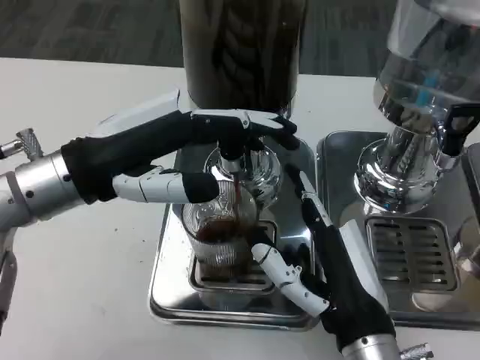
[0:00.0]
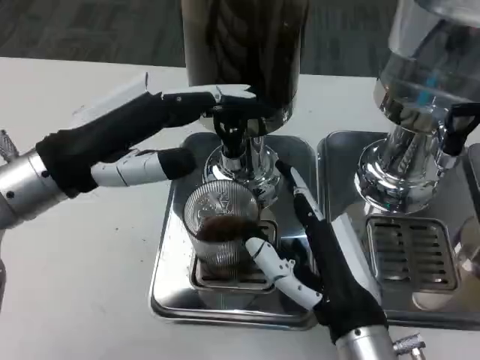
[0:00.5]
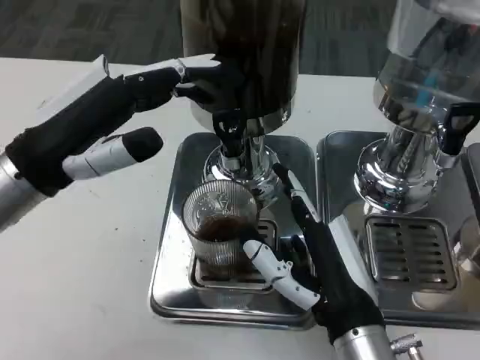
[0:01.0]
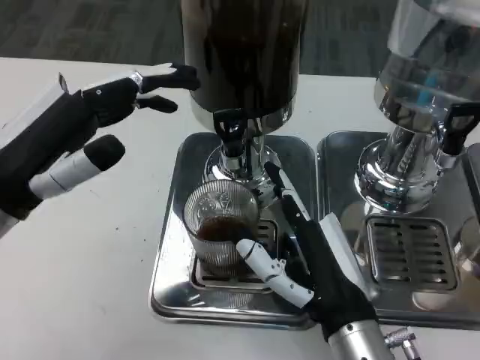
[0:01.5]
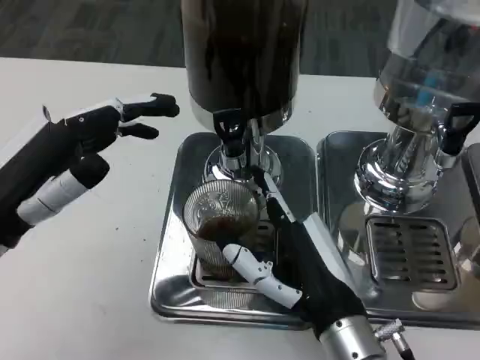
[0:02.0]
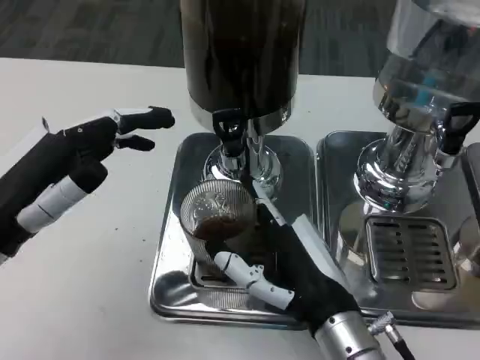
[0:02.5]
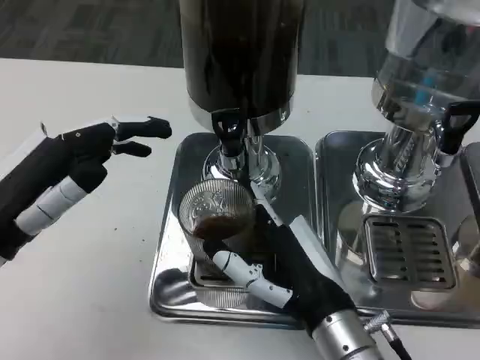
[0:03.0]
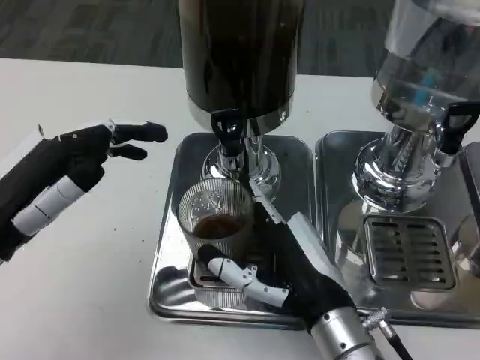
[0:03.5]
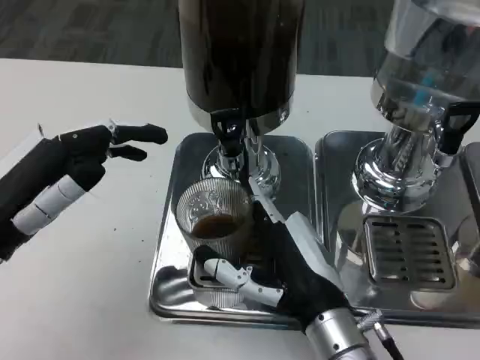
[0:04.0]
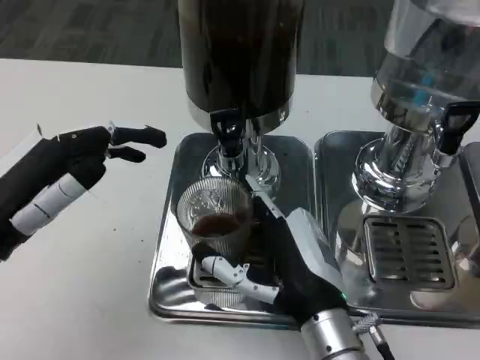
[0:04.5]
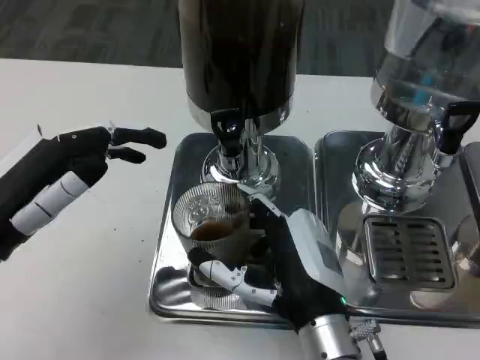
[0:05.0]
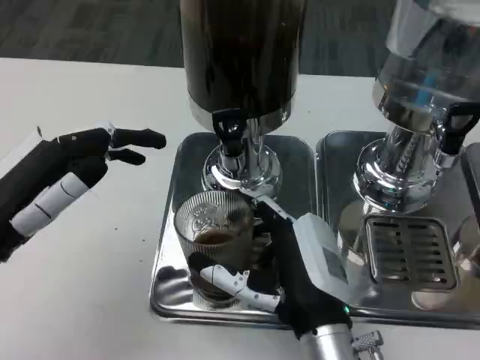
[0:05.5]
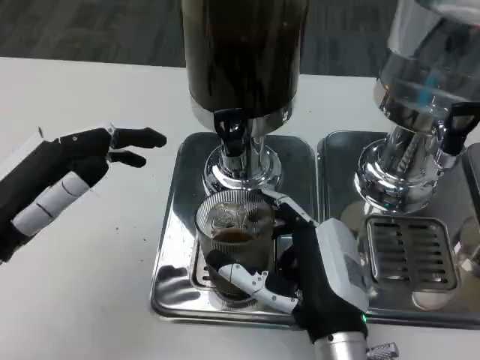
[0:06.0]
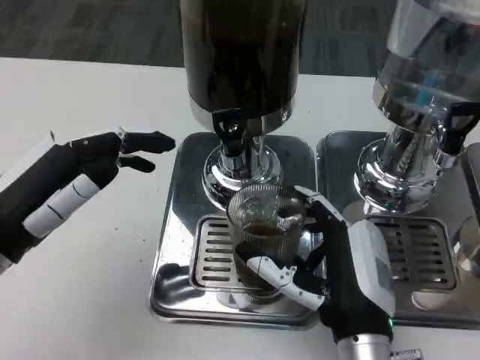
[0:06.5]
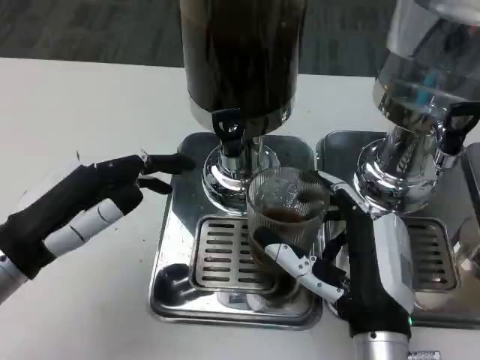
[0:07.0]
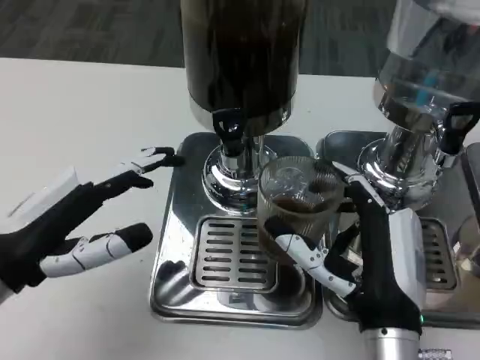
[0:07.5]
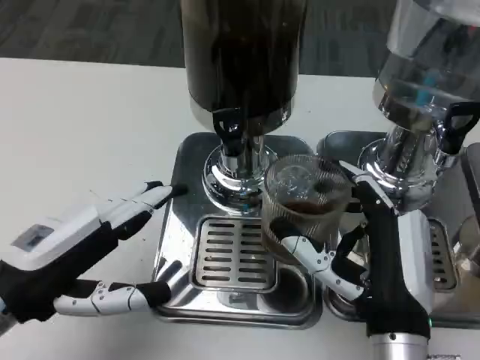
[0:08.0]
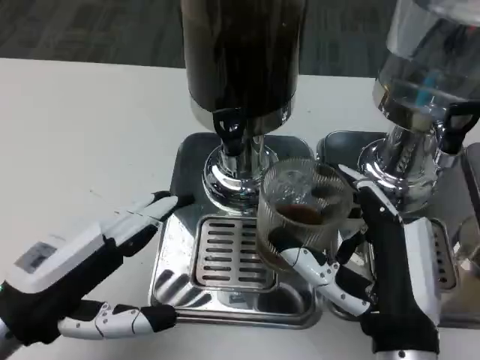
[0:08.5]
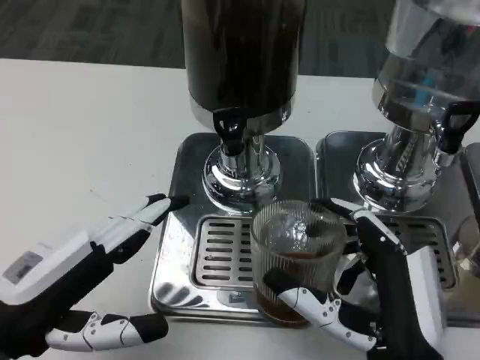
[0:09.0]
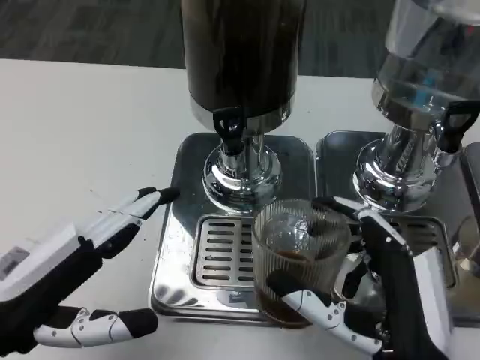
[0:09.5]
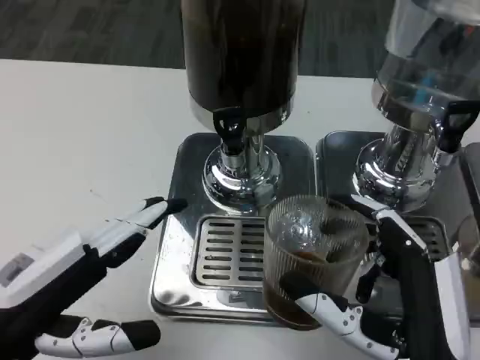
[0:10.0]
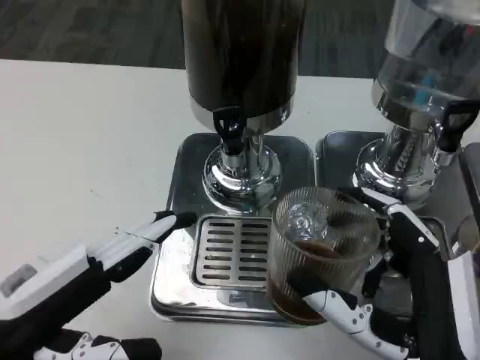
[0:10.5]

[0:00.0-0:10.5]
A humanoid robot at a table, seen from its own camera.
Task of the whole recording: Grasp the cup under the faucet to collect the drink, then remove the cup.
0:00.0 to 0:02.0: The left hand travels backward and to the left by about 10 cm.
0:02.0 to 0:04.0: The hands make only small movements.
0:06.5 to 0:08.5: The left hand shifts approximately 5 cm backward.
